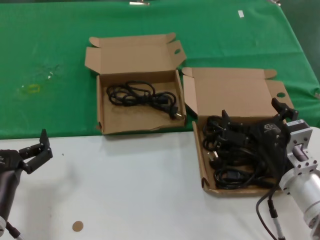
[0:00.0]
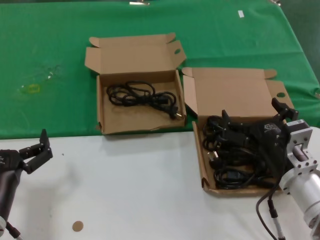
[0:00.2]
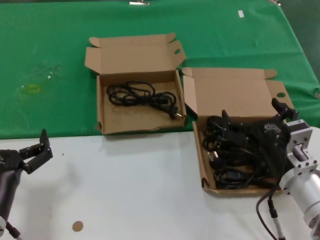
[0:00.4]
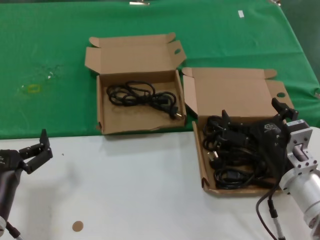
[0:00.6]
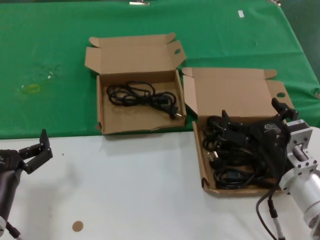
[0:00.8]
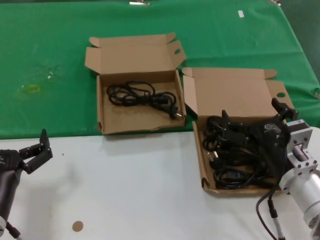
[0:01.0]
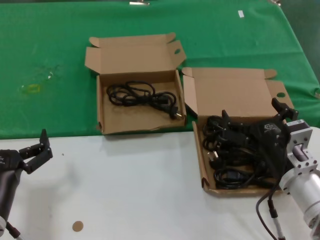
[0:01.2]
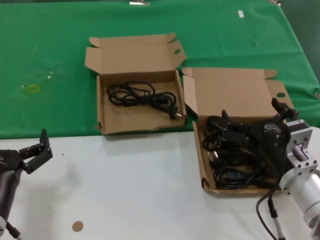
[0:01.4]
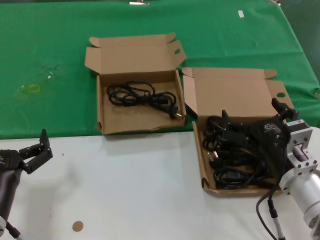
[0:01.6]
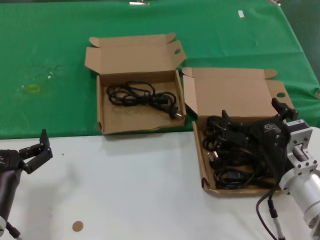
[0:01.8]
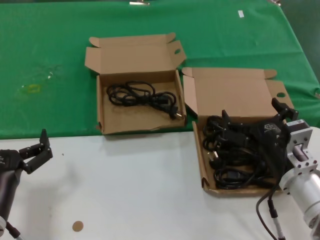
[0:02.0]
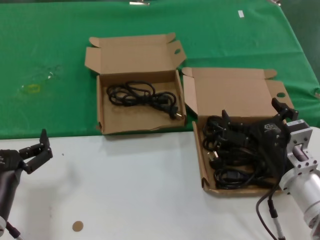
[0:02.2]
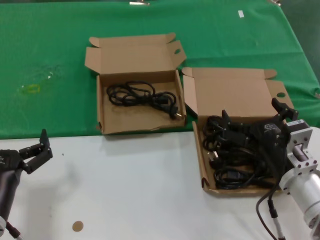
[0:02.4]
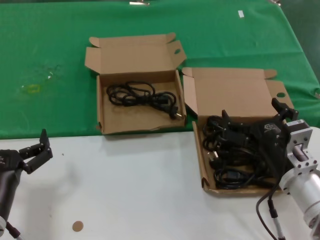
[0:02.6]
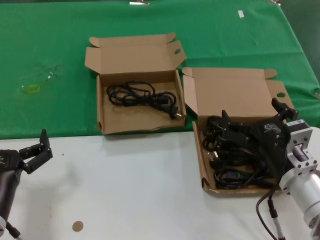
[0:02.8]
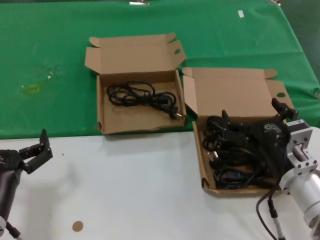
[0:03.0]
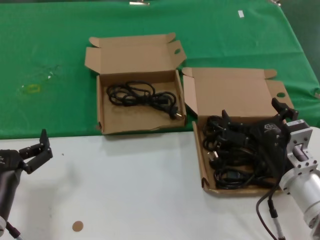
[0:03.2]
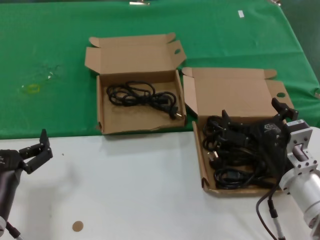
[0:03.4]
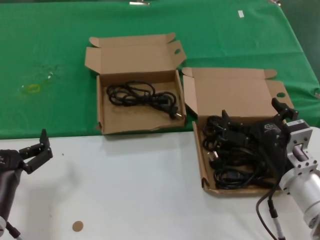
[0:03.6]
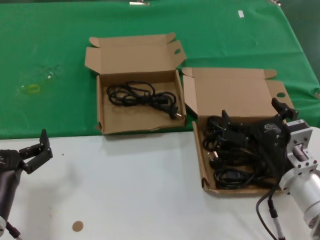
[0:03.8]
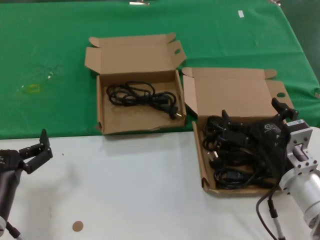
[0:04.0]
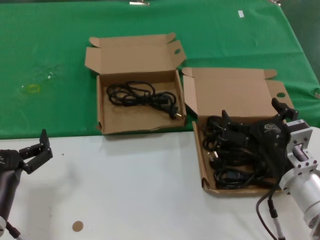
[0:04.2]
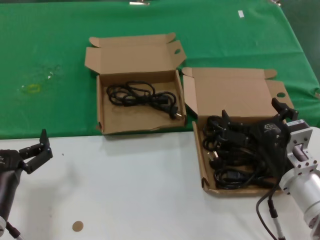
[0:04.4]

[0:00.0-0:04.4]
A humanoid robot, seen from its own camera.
Task of the whole recording: take the parts from the box containing them and put them into an empty box.
0:00.0 to 0:04.4: Both hands stay put.
